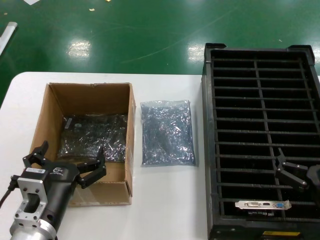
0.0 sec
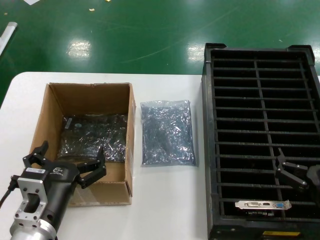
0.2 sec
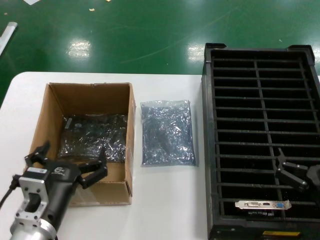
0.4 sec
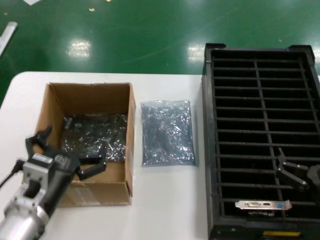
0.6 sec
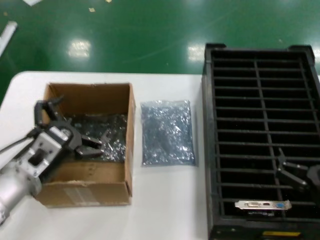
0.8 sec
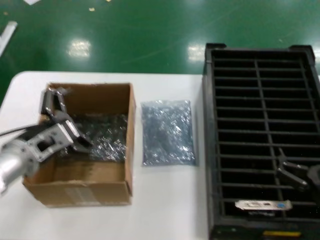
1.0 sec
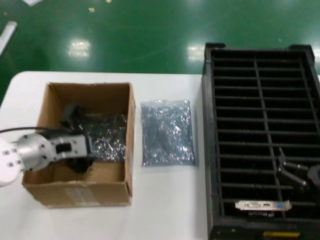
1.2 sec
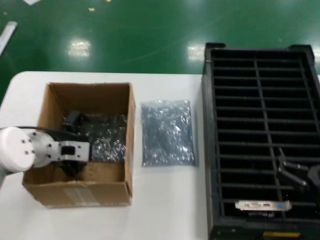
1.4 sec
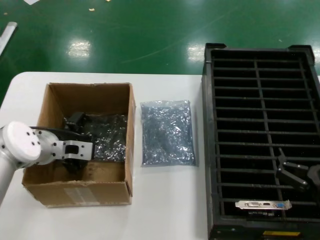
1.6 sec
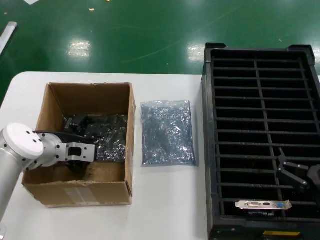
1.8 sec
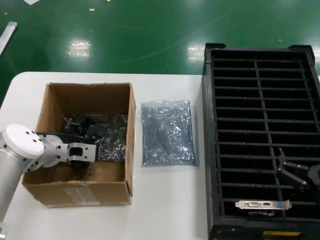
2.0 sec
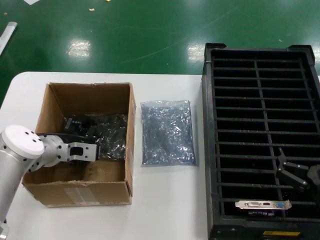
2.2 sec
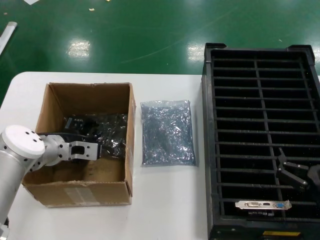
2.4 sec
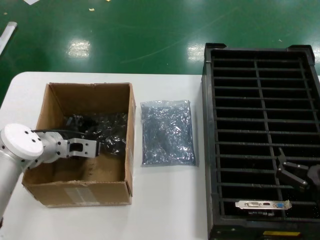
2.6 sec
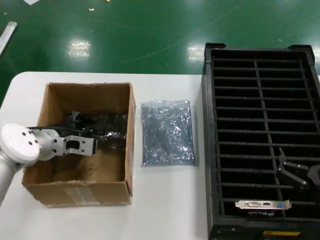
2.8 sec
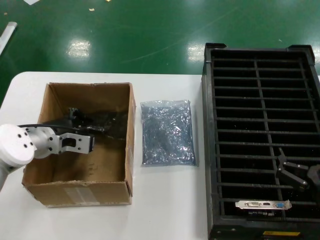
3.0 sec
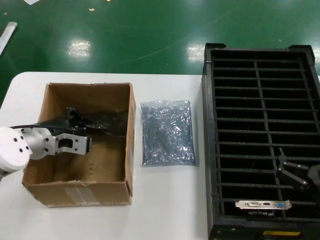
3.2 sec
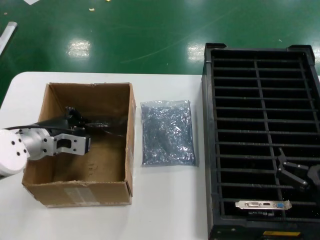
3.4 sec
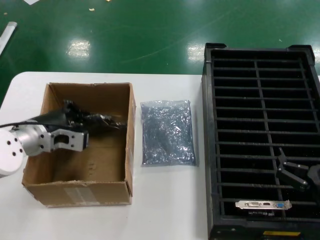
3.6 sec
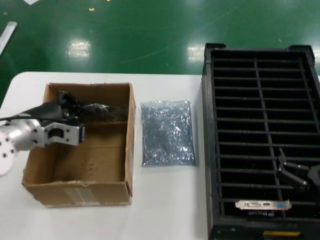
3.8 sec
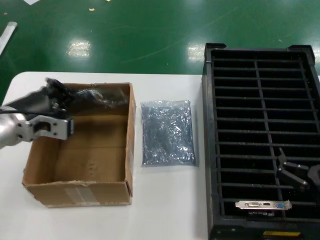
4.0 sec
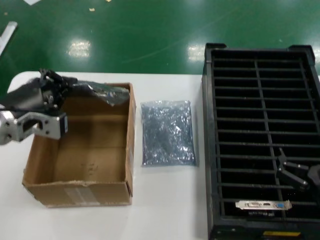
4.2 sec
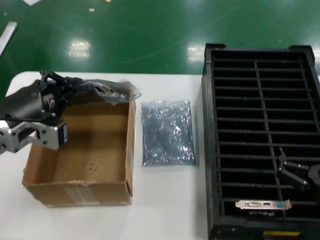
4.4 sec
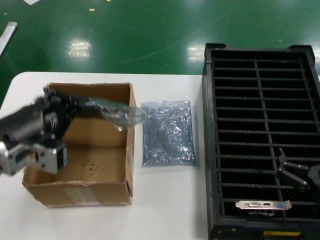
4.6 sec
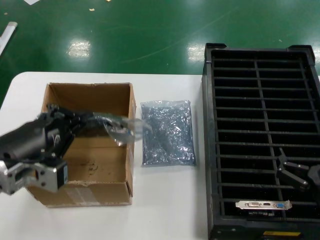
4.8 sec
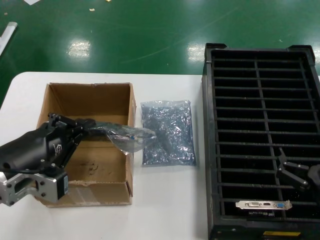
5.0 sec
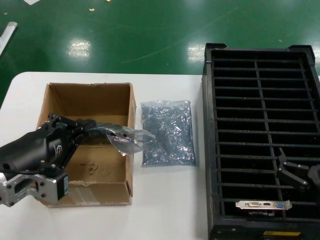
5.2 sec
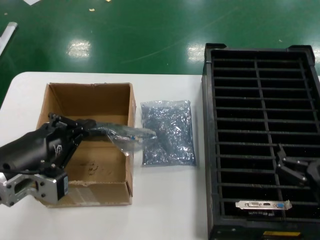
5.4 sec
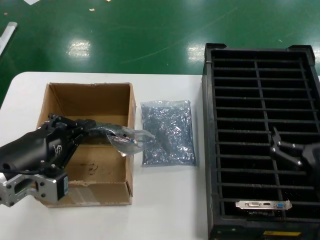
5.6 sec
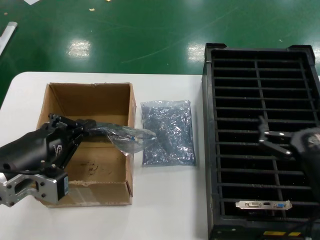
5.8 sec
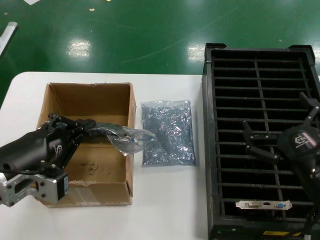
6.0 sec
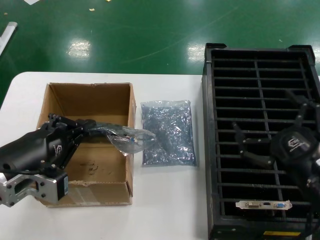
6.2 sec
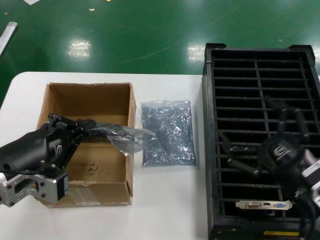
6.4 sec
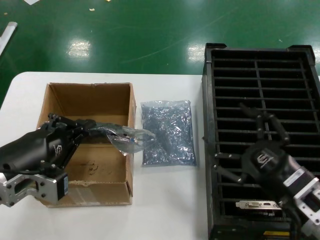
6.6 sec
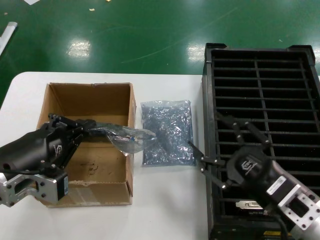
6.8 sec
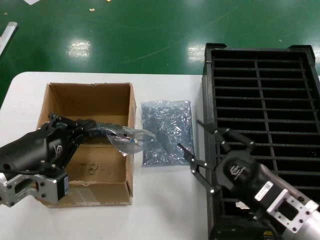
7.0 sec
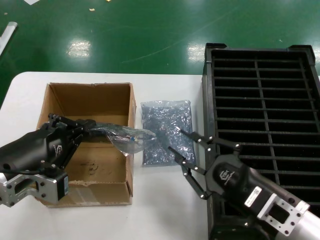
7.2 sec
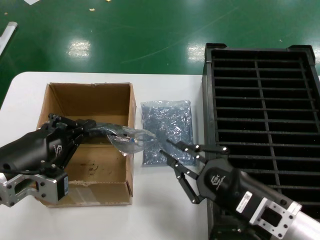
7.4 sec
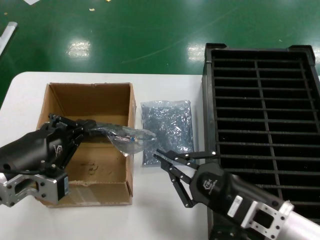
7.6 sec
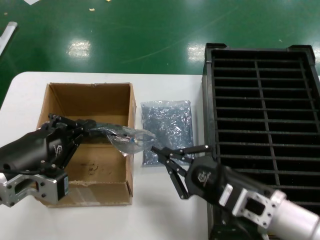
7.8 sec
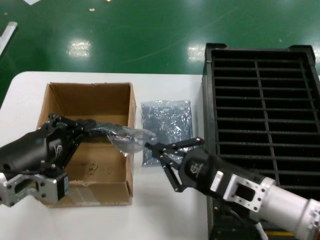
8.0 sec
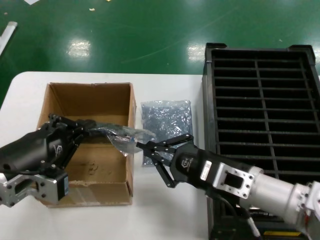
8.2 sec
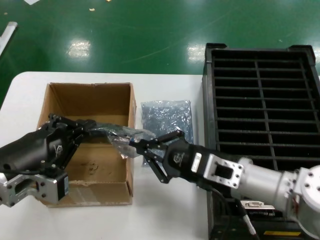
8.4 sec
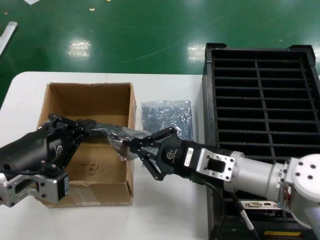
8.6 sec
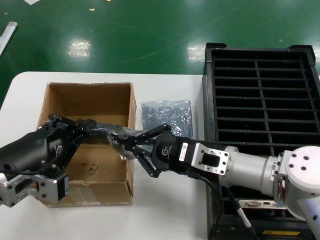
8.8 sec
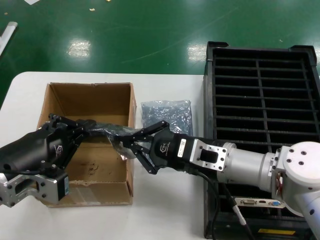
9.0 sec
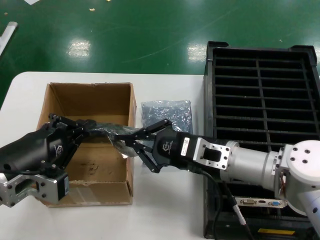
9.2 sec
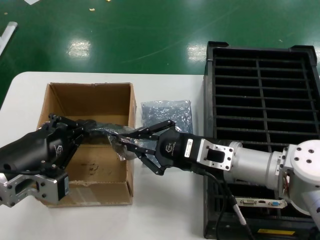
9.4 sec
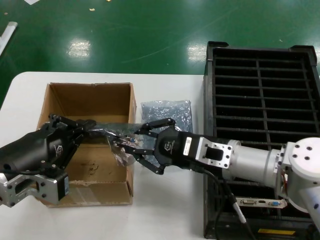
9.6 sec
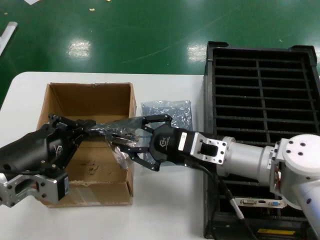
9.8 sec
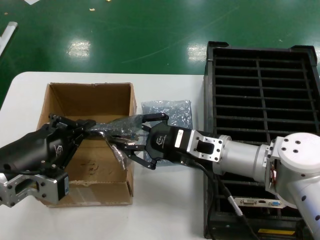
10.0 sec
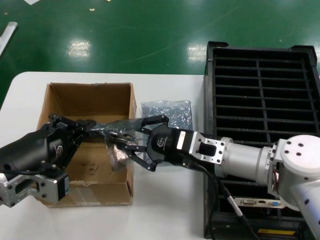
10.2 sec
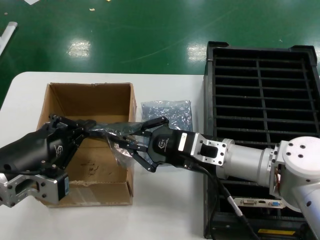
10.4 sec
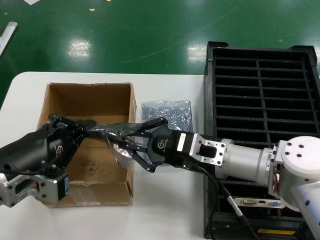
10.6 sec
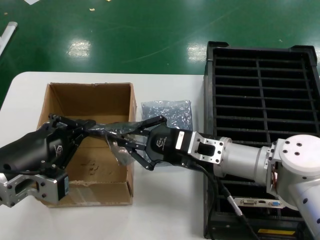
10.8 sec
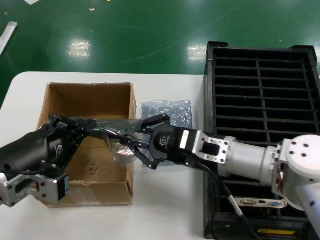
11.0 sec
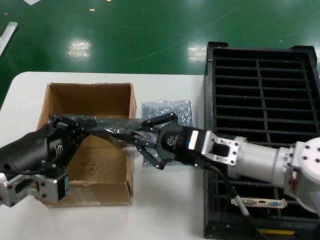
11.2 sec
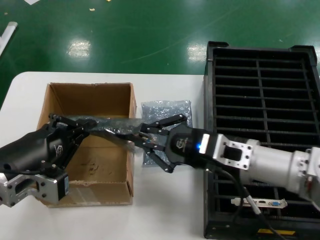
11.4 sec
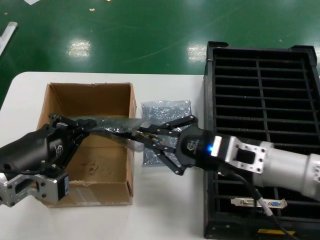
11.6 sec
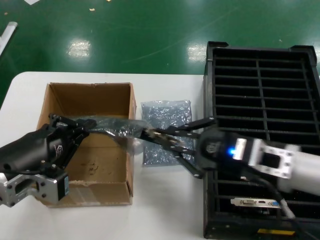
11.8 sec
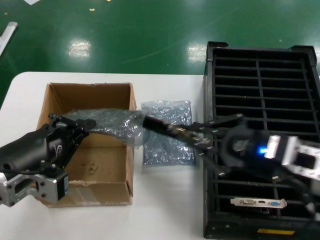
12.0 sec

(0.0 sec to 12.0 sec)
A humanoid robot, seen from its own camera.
Task of the whole recording: take out graphics card from box remove packaging put into black container.
Step, 0.0 sec - 3.0 sec: Grasp the bag.
Step, 3.2 sec - 5.2 sec: Lift the bag.
0.0 sec - 1.6 sec: The left hand is displaced forward by roughly 20 cm.
1.6 sec - 3.0 sec: The hands move only a little.
3.0 sec - 4.4 sec: The left hand heads backward and upward, covering roughly 15 cm.
4.4 sec - 6.0 sec: The right hand changes place by approximately 5 cm; the left hand goes roughly 5 cm backward.
6.0 sec - 7.6 sec: The right hand heads to the left, covering approximately 5 cm.
7.6 sec - 9.0 sec: The right hand goes approximately 15 cm forward and to the left.
9.0 sec - 10.4 sec: The hands make only small movements.
10.4 sec - 12.0 sec: The right hand heads to the right, backward and upward, covering about 15 cm.

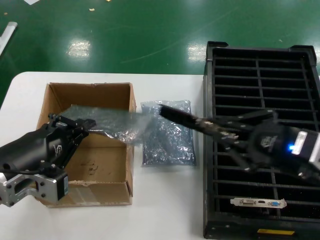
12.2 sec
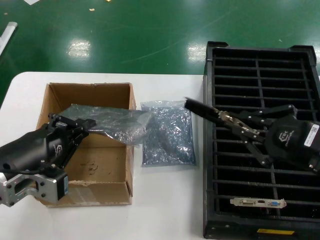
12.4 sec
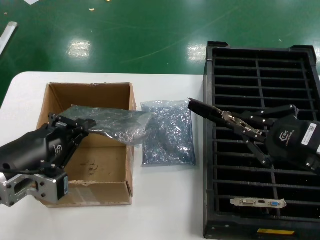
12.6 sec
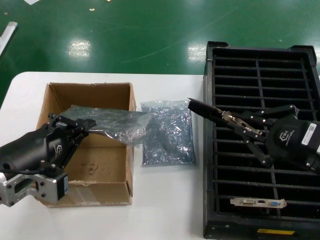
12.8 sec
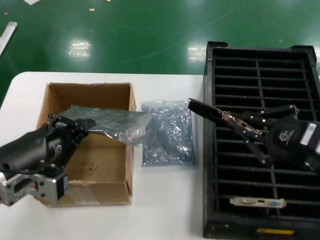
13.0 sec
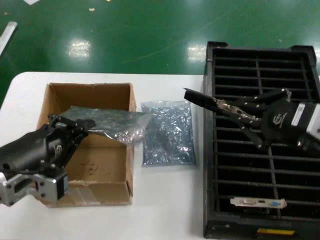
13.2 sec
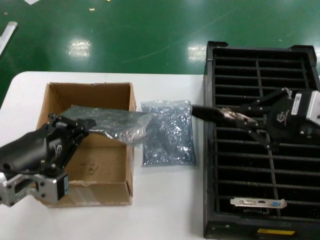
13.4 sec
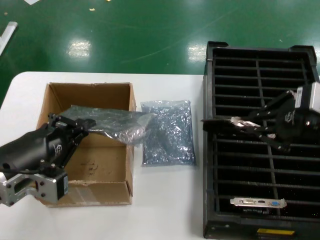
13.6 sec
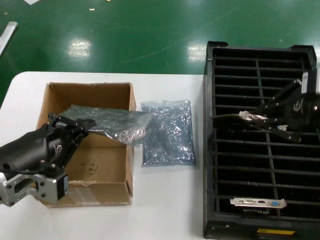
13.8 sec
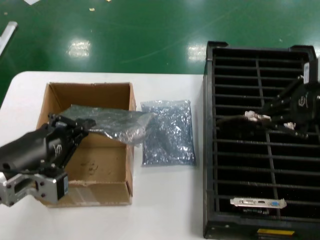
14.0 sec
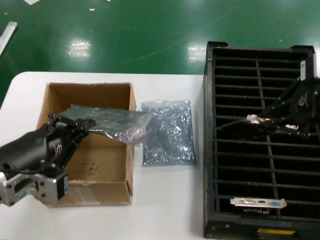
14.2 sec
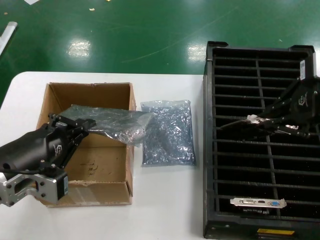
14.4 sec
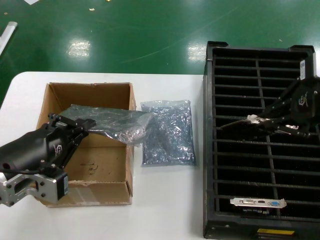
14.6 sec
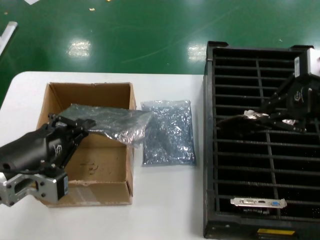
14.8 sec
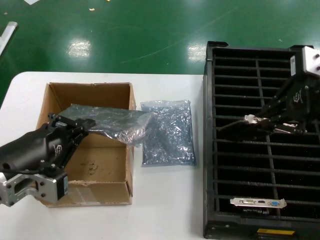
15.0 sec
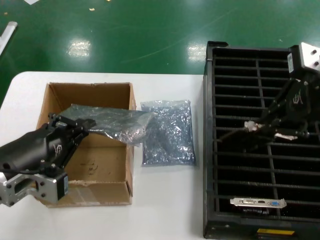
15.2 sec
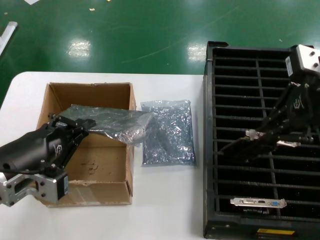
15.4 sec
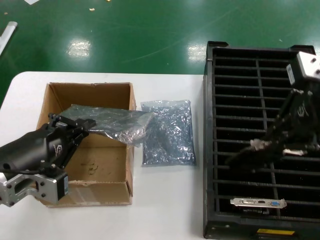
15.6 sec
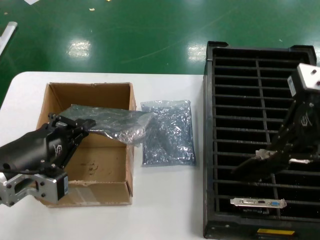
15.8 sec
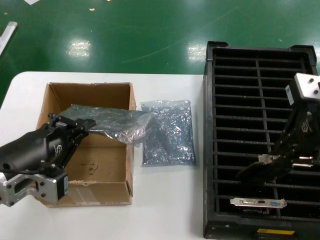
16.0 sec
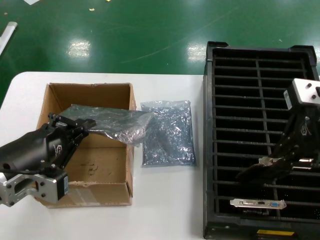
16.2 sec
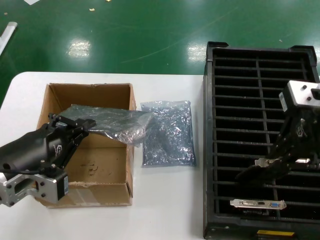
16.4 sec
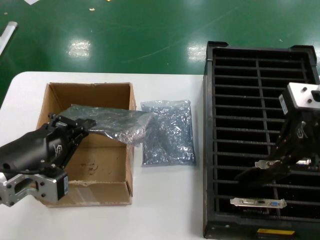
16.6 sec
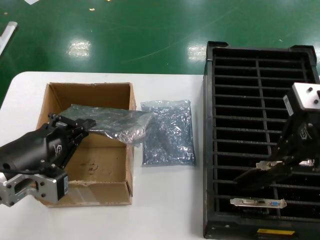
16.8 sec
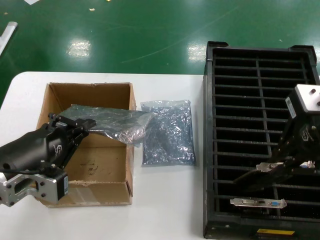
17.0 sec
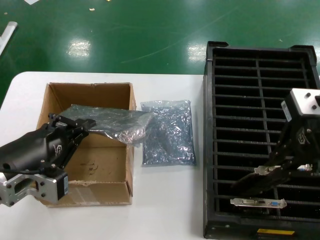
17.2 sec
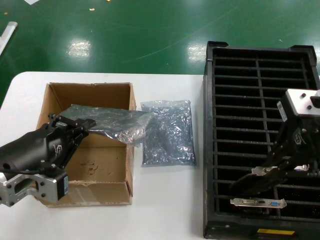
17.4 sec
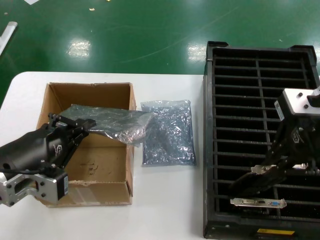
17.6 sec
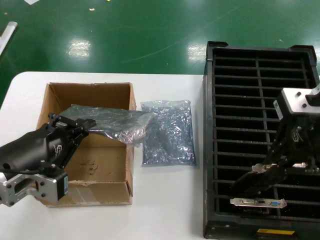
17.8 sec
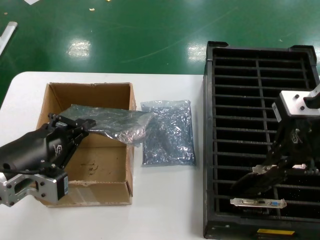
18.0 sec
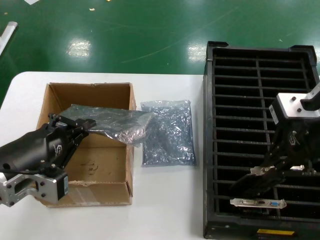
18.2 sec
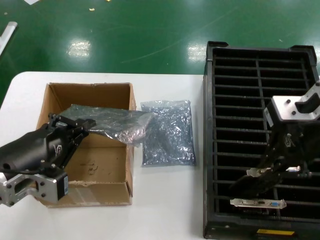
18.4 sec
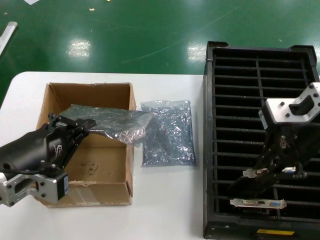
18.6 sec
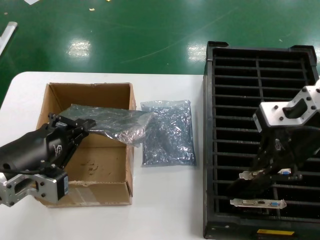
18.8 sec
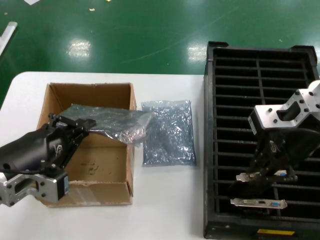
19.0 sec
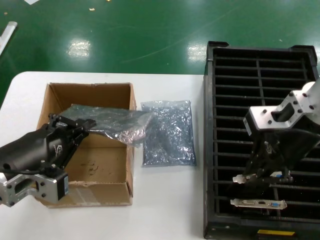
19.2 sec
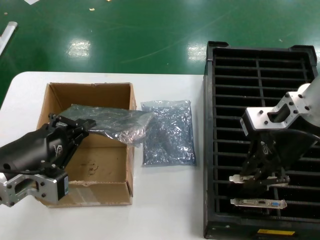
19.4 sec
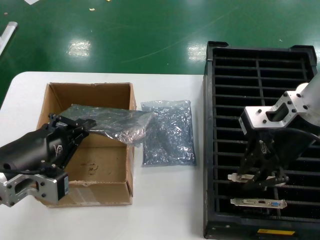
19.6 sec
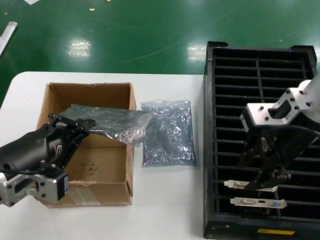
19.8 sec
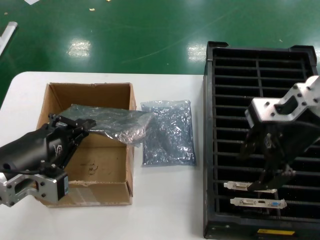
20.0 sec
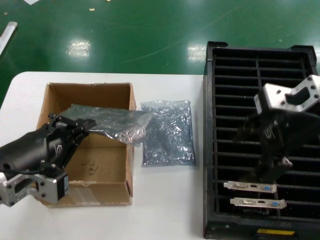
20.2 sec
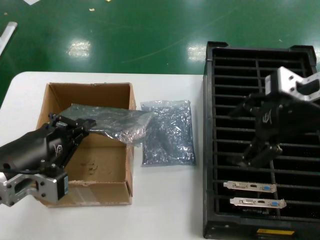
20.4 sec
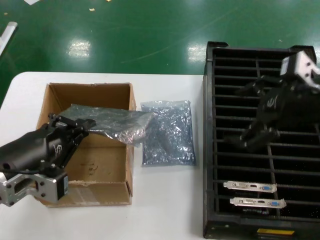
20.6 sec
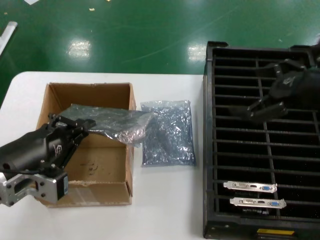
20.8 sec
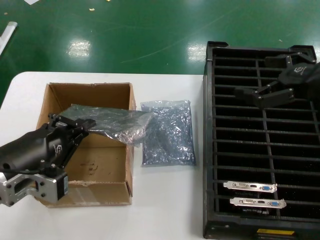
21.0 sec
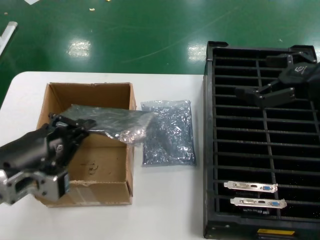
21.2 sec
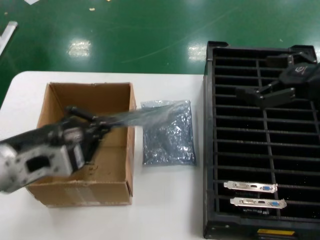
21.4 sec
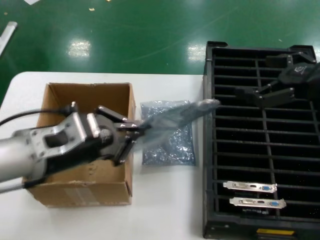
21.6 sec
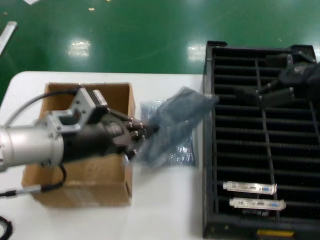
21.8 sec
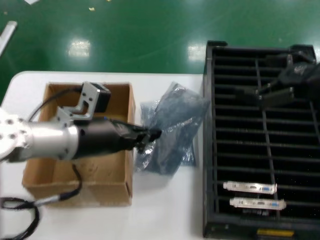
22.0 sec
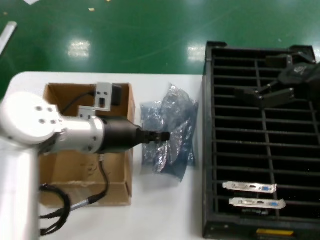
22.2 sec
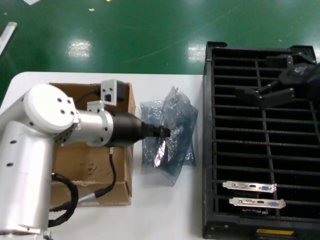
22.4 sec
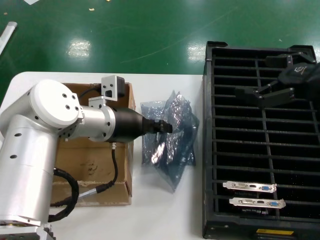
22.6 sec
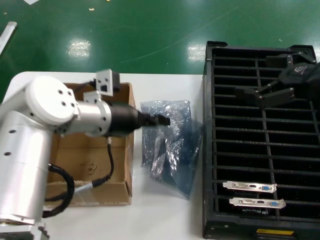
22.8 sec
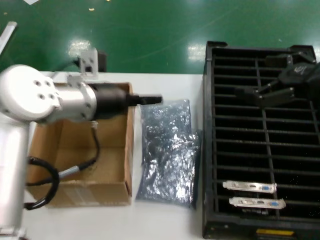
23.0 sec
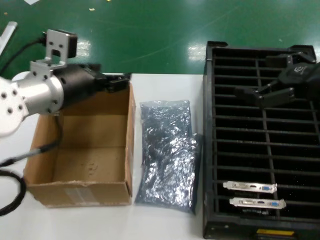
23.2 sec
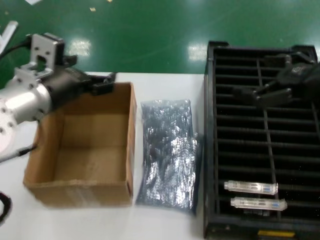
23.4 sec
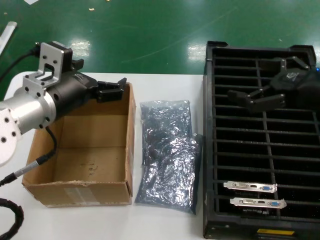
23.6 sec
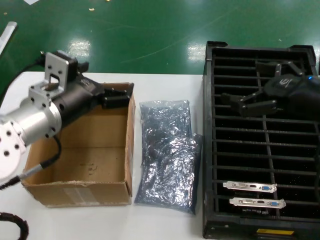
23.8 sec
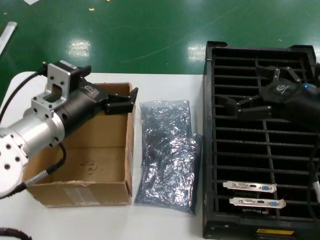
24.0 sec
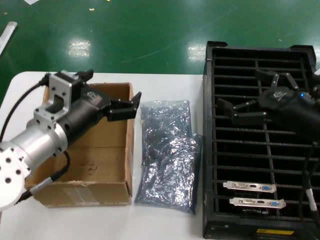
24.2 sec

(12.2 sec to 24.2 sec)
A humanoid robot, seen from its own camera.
Task of the whole recording: take out graphics card from box remove packaging put into black container.
Step, 12.4 sec - 20.4 sec: Place the hard disk in the hard disk enclosure.
12.2 sec - 13.8 sec: The right hand travels upward and forward by some 15 cm.
13.8 sec - 15.2 sec: The right hand shifts about 5 cm upward.
15.2 sec - 18.2 sec: The hands make only small movements.
18.2 sec - 19.8 sec: The right hand shifts by approximately 5 cm.
19.8 sec - 21.2 sec: The right hand travels to the right by about 15 cm.
21.2 sec - 22.6 sec: The left hand shifts about 20 cm forward and to the right.
22.6 sec - 24.2 sec: The left hand heads backward, covering roughly 10 cm. The right hand shifts about 10 cm downward.
